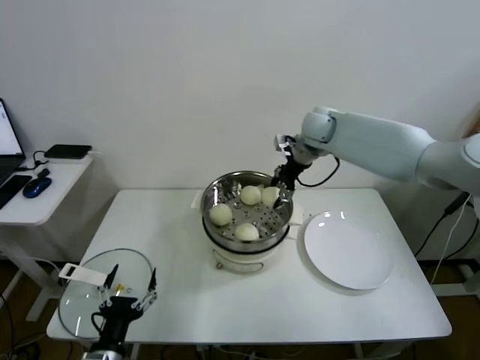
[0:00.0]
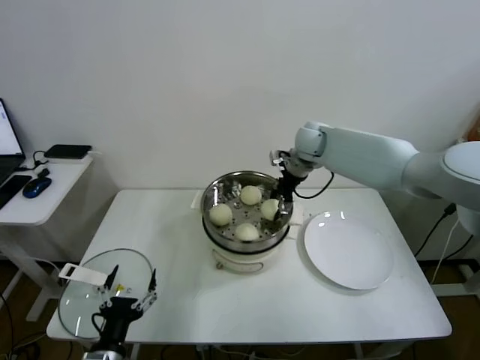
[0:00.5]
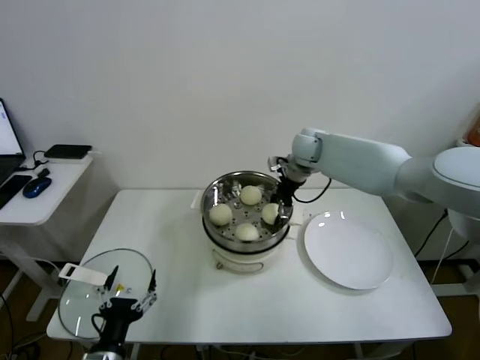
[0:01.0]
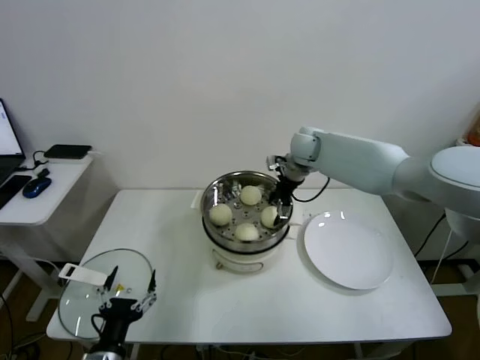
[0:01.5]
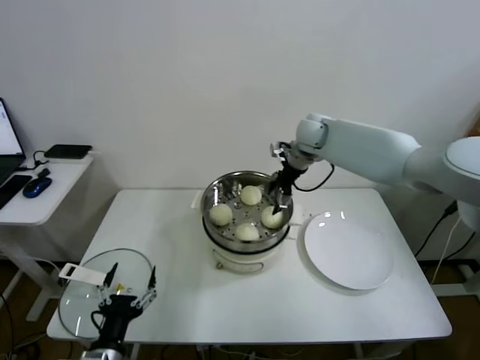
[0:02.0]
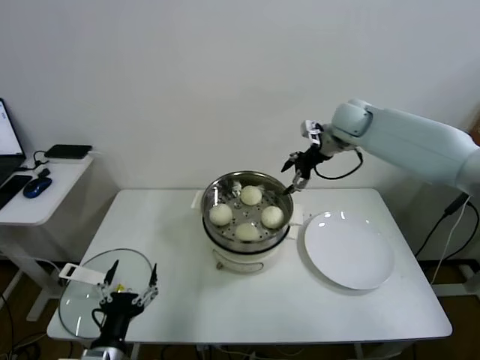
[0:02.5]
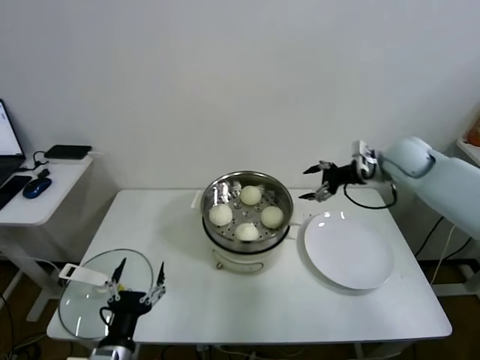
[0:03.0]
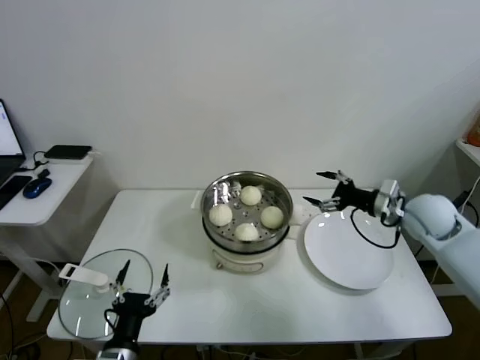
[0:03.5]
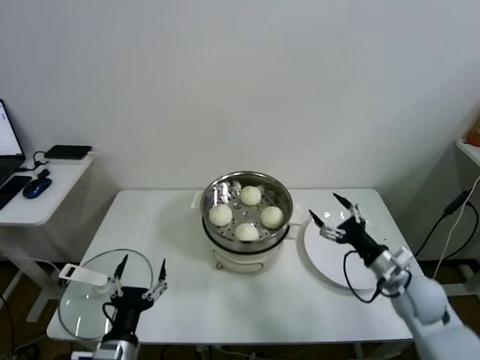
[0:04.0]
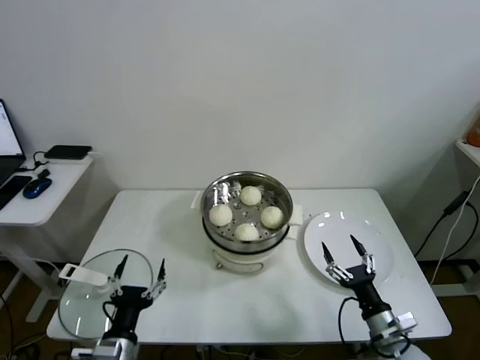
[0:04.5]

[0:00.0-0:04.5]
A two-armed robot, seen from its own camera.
Task of the whole recording: take steamed baozi put them in steamer.
0:00.0 to 0:02.0: The right gripper opens up.
0:02.0 to 0:04.5: The right gripper moves backward and downward, about 50 cm.
